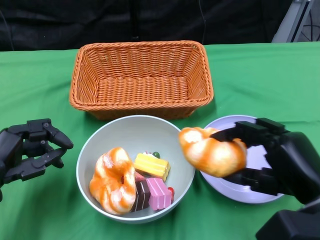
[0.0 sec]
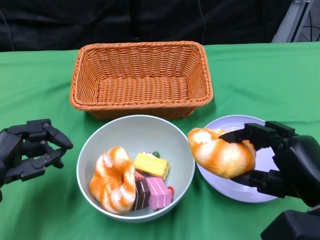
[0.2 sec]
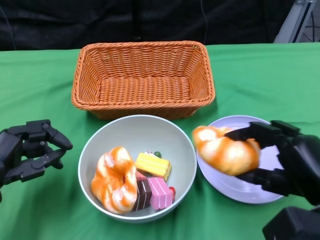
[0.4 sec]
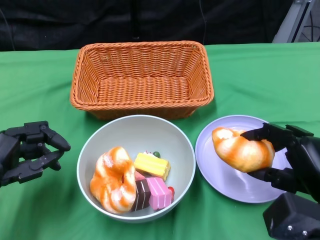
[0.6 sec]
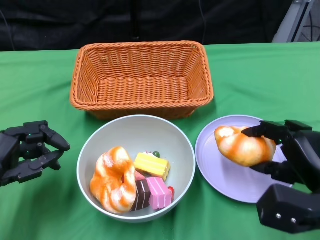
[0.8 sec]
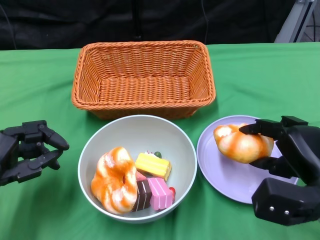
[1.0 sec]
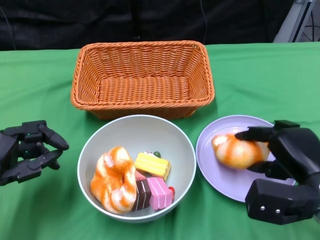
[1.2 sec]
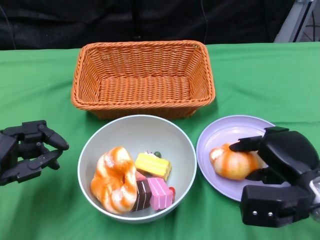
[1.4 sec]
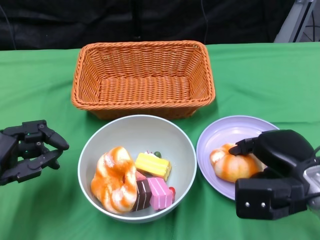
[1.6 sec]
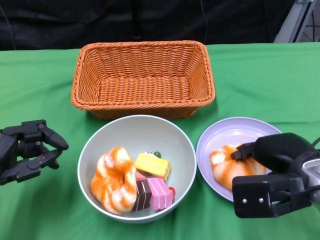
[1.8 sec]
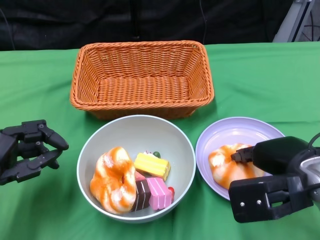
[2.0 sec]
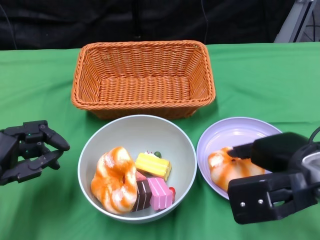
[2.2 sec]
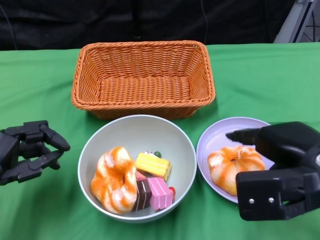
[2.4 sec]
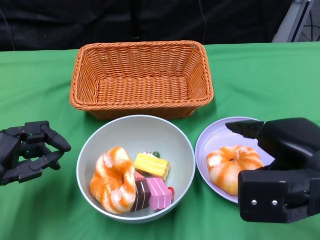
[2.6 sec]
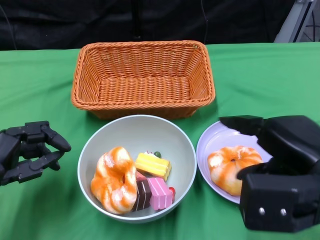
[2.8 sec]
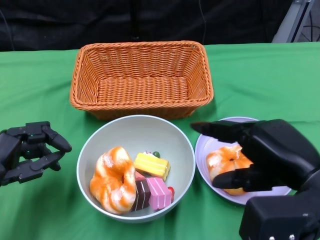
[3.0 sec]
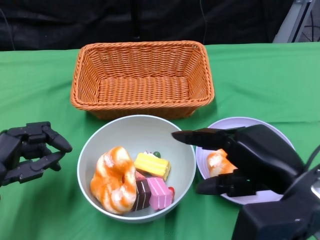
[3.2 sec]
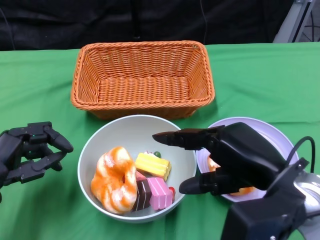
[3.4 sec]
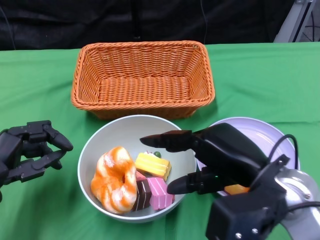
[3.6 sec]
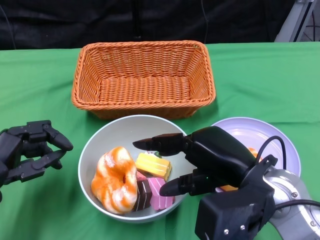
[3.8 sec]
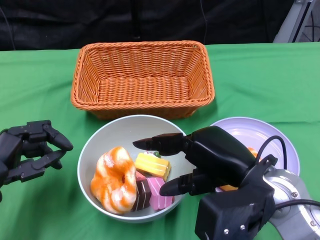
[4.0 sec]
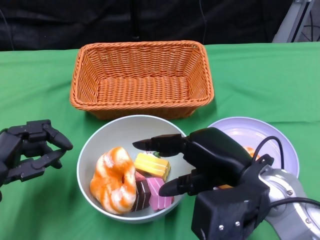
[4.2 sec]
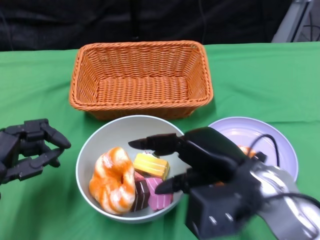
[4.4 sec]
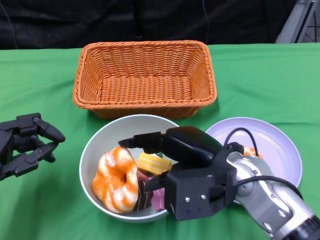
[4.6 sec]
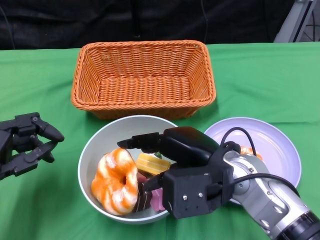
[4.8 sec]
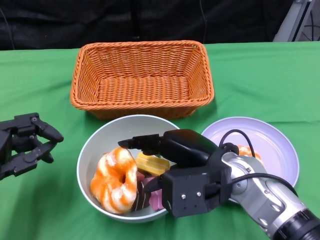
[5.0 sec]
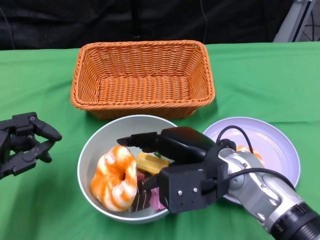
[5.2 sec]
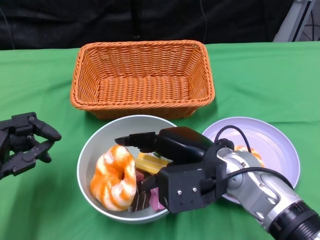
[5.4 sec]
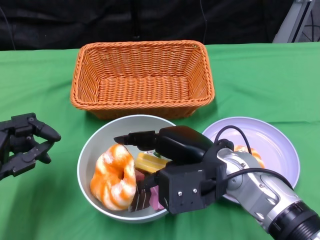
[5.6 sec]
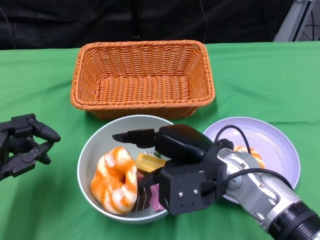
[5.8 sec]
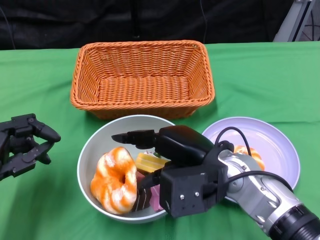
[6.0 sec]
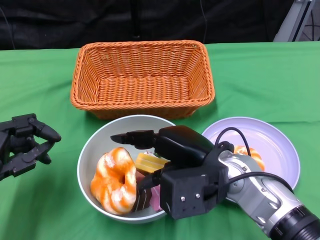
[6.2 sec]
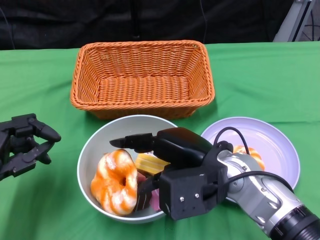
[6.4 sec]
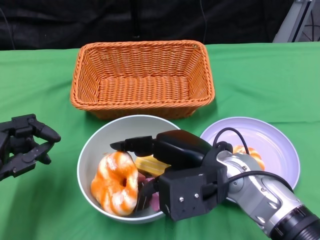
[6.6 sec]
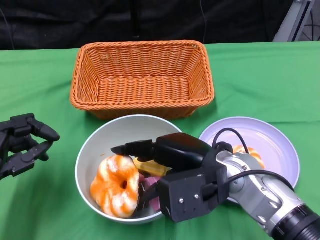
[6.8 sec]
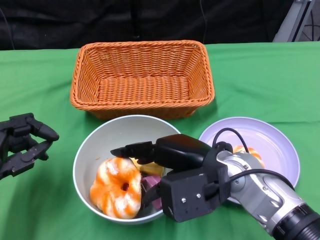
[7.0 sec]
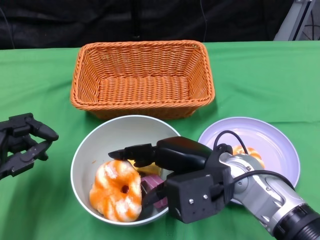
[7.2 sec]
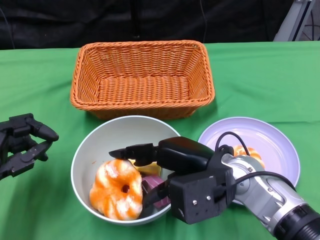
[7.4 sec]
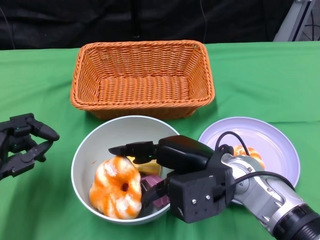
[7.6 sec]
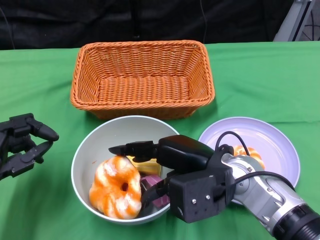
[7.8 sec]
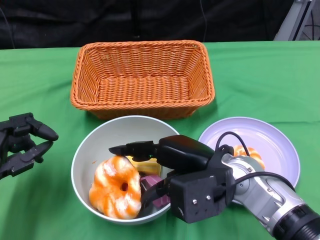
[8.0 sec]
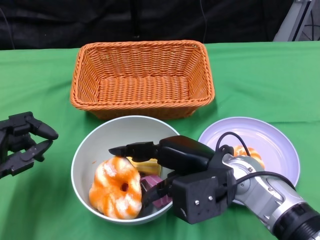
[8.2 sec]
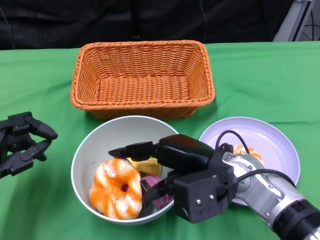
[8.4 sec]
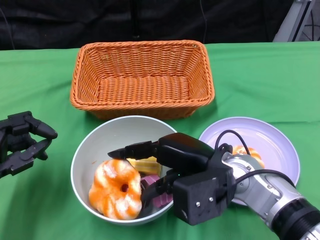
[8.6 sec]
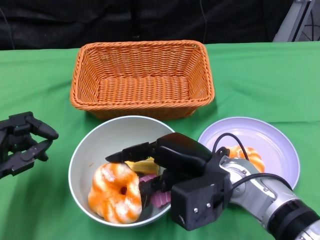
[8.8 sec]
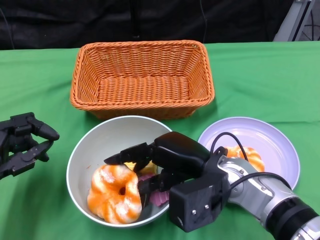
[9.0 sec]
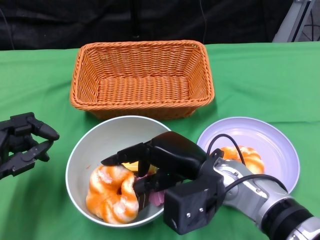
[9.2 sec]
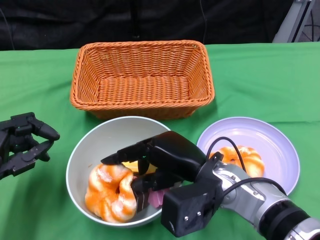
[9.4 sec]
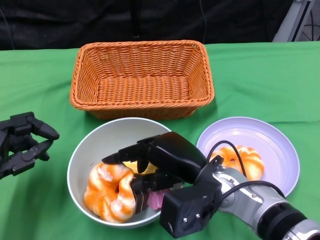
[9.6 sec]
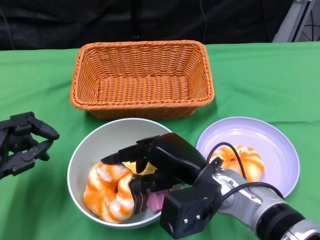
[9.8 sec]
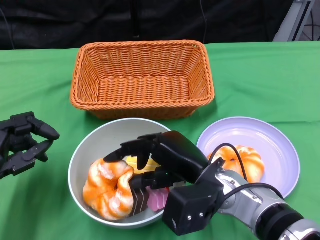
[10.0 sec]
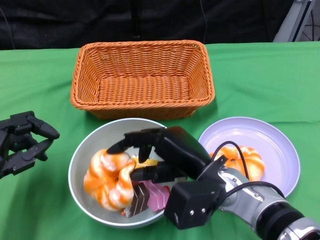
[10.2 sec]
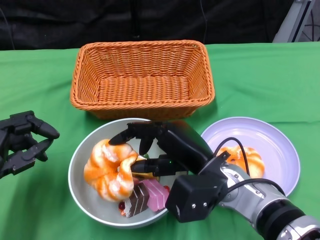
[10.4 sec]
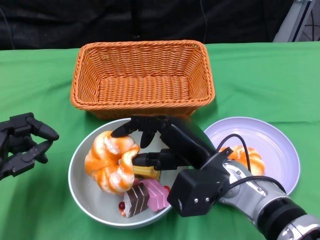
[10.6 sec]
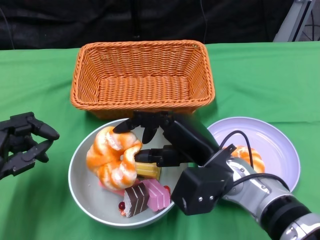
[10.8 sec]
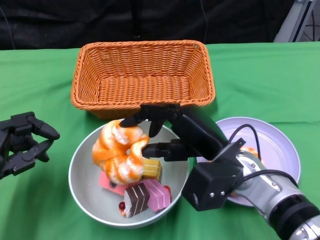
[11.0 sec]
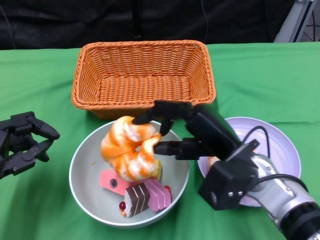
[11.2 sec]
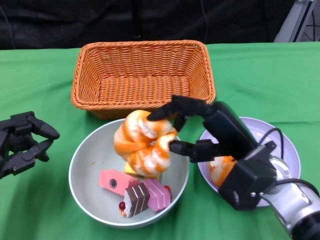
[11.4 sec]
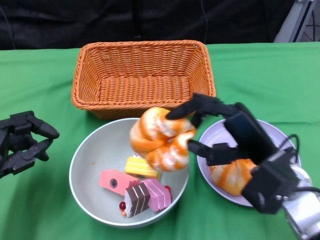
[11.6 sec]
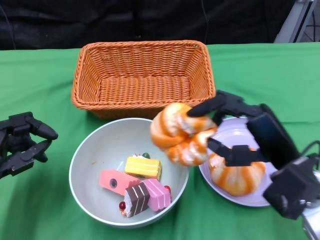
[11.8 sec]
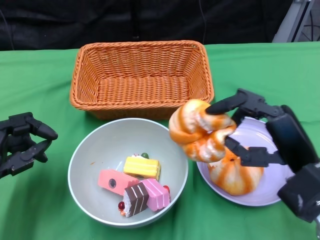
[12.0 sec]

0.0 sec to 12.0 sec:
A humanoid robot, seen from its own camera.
0.0 sec to 1.6 sec: The right hand travels forward by approximately 5 cm.
1.6 sec to 3.0 sec: The right hand goes some 10 cm upward and backward.
3.0 sec to 4.4 sec: The right hand heads to the left, covering about 5 cm.
4.4 sec to 6.0 sec: The right hand ends up roughly 5 cm from where it was.
6.0 sec to 9.0 sec: The hands stay close to where they were, moving slightly.
10.4 sec to 12.0 sec: The right hand goes roughly 15 cm to the right.

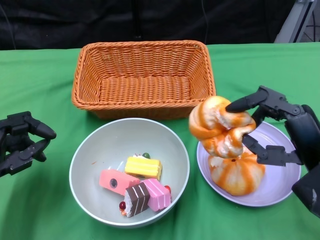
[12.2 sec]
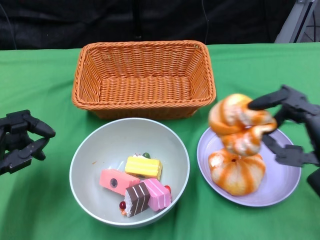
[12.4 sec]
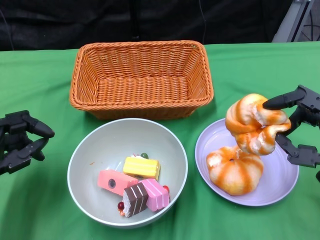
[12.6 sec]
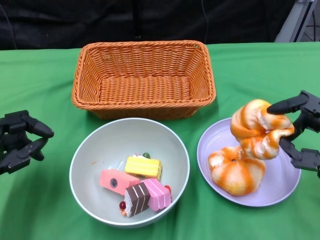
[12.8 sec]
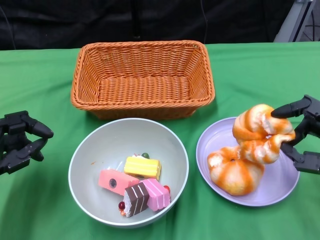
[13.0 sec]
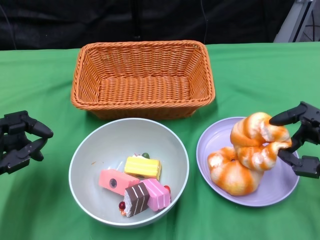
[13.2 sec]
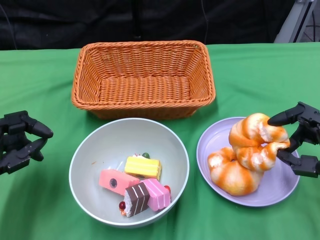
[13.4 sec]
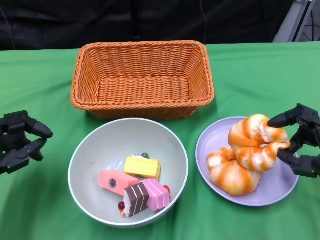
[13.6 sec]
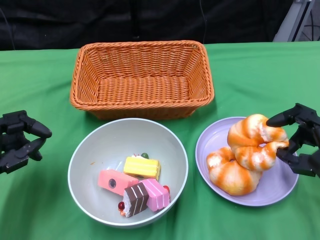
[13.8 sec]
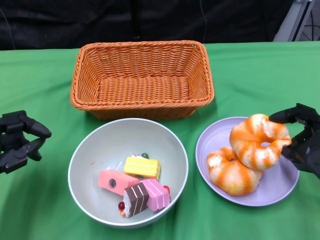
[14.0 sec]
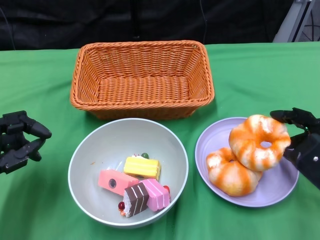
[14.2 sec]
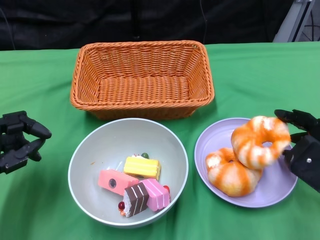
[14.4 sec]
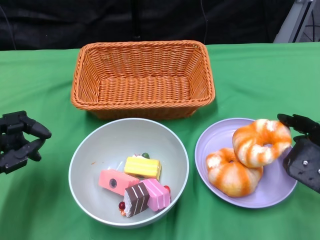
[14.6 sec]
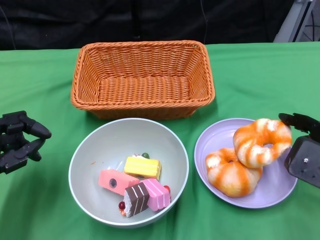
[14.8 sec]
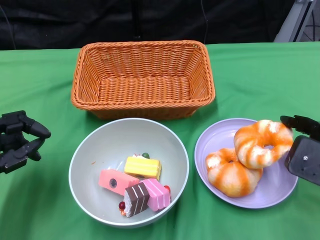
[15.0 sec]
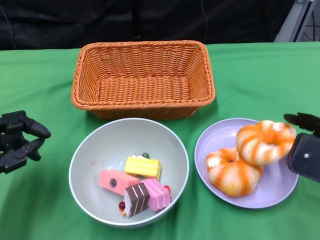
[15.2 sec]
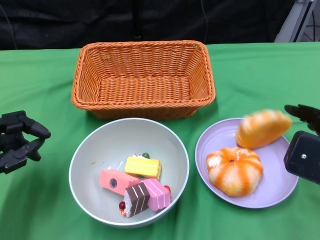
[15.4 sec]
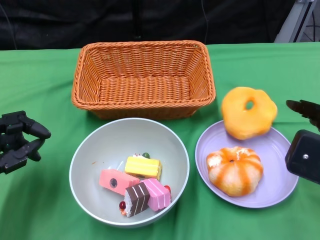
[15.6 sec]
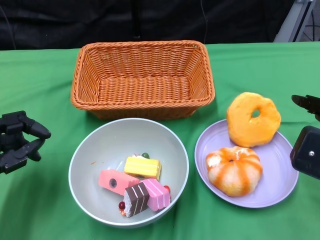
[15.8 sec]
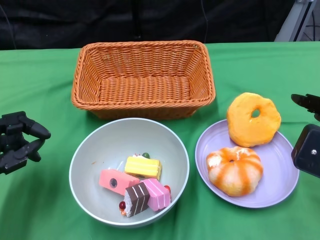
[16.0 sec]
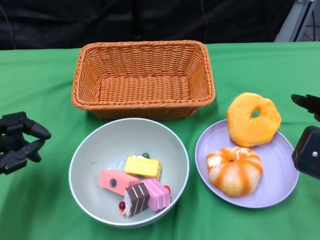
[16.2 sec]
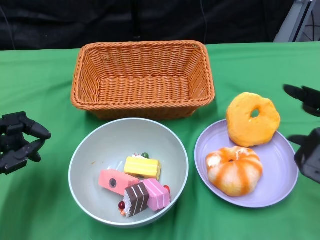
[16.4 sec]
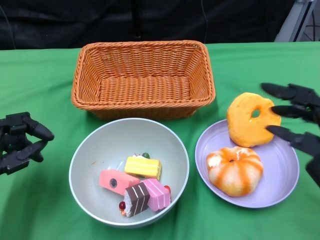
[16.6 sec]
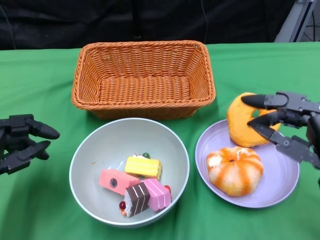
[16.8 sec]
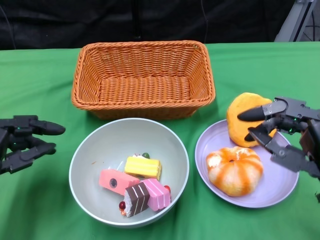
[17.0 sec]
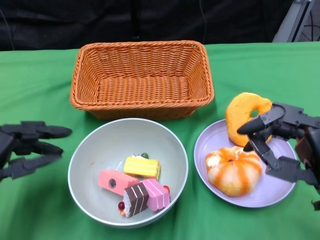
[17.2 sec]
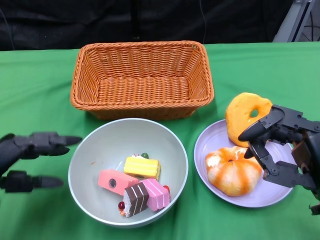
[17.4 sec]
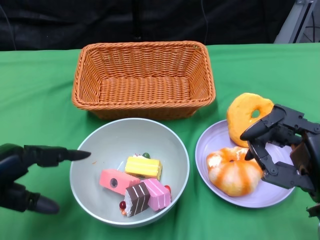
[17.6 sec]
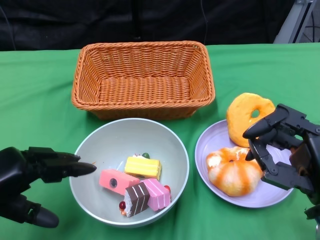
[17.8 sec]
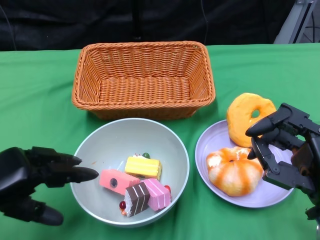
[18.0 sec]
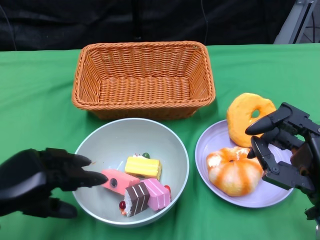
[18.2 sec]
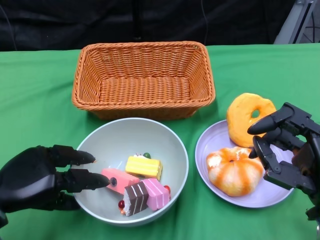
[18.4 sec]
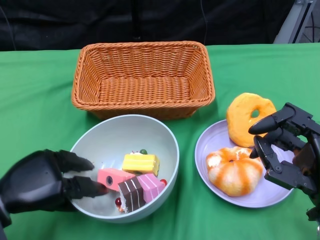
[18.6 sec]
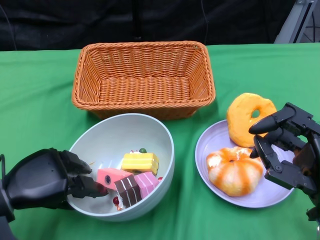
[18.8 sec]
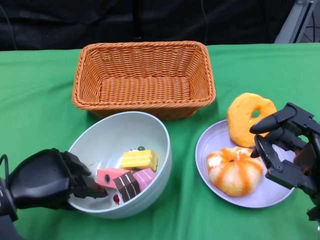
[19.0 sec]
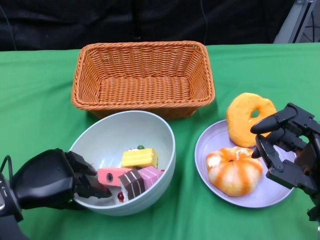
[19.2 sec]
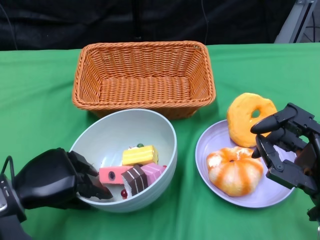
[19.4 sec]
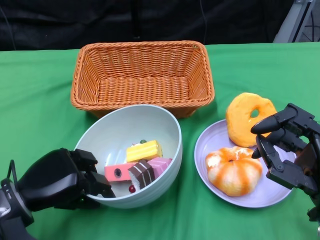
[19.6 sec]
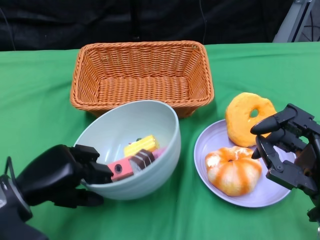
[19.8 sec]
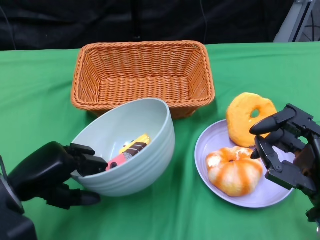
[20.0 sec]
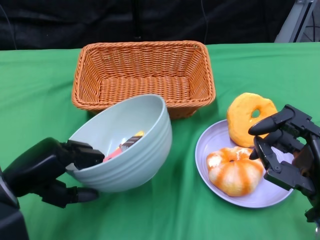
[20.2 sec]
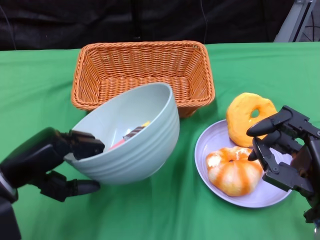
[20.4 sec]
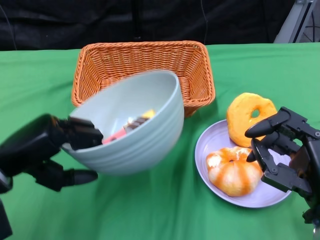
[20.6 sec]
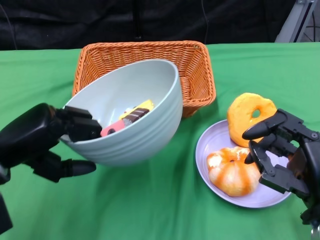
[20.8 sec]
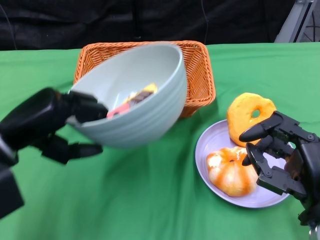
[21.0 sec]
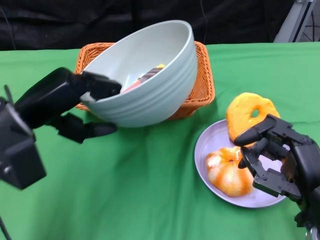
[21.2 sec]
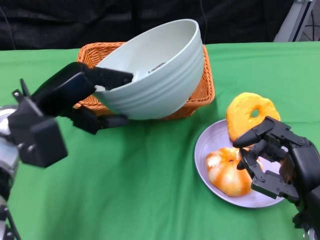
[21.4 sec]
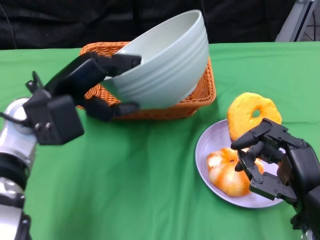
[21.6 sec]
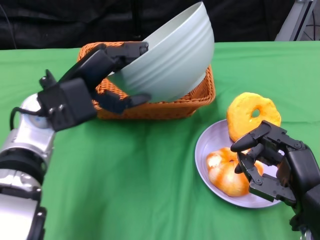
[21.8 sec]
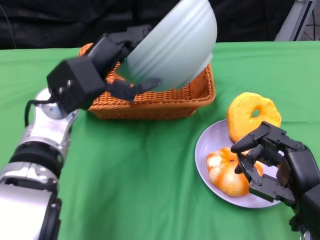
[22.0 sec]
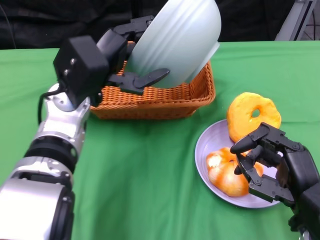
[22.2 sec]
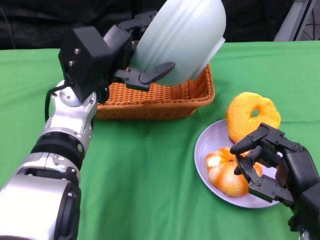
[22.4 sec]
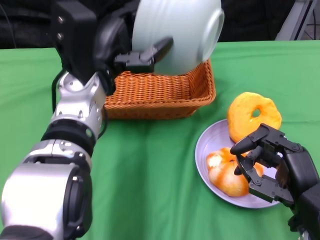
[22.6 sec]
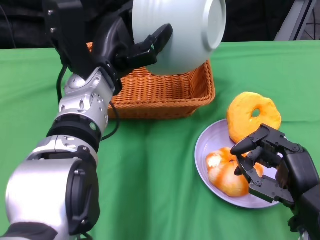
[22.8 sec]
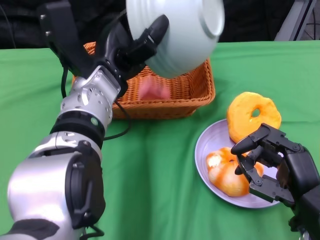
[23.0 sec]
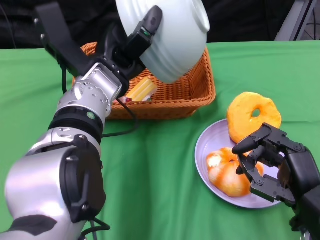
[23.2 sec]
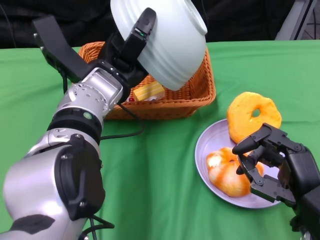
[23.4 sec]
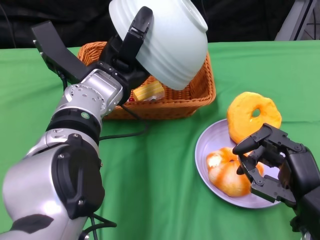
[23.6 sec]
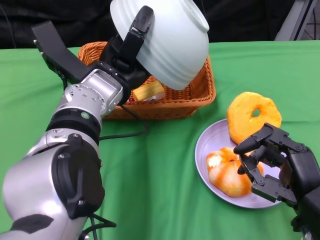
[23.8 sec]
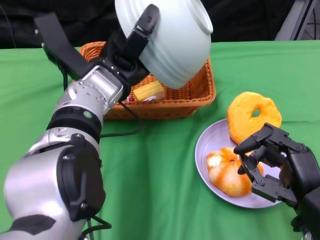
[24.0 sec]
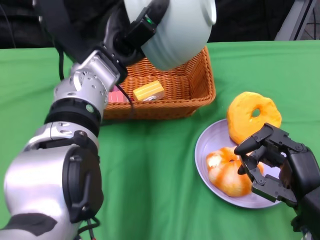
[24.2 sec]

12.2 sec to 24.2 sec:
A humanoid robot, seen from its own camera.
Step, 12.2 sec to 16.4 sec: Pick up the bread with the right gripper and place it on the plate.
Step, 16.6 sec to 19.8 sec: Grasp the bowl with the left gripper.
Step, 20.0 sec to 24.0 sec: Pour the cake into the basket with the left gripper.
12.2 sec to 13.8 sec: The right hand shifts by about 5 cm.
13.8 sec to 15.2 sec: The right hand moves upward, about 5 cm.
16.6 sec to 18.2 sec: The right hand shifts by roughly 5 cm.
18.2 sec to 19.8 sec: The left hand changes place by roughly 5 cm.
19.8 sec to 21.2 sec: The left hand moves upward and forward, some 10 cm.
21.2 sec to 22.6 sec: The left hand shifts some 10 cm to the right and forward.
